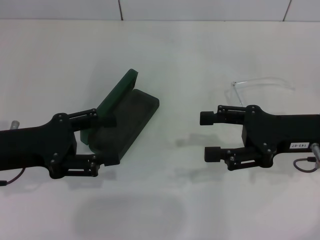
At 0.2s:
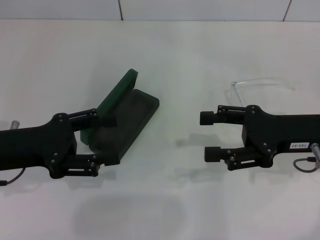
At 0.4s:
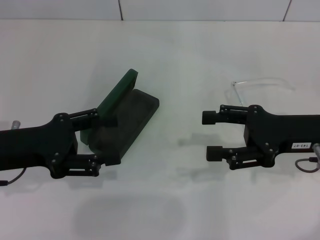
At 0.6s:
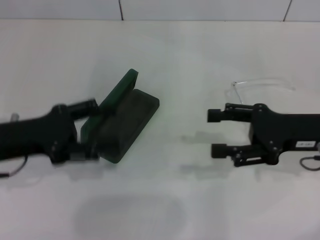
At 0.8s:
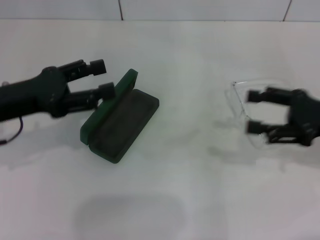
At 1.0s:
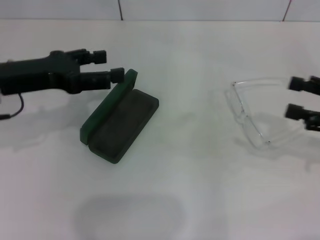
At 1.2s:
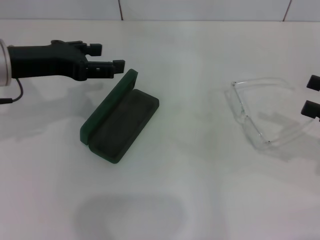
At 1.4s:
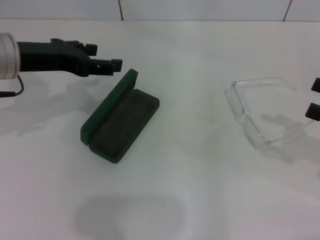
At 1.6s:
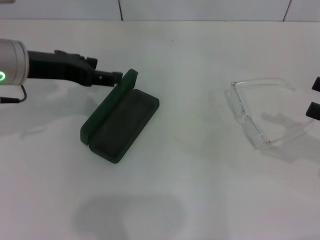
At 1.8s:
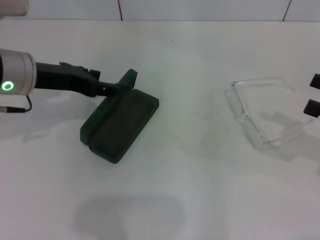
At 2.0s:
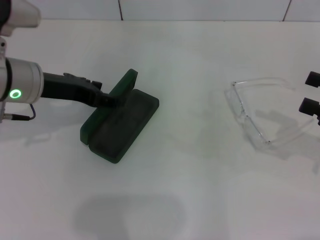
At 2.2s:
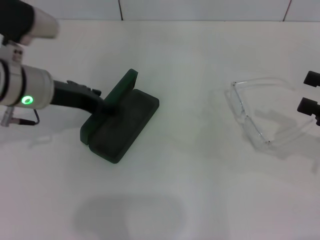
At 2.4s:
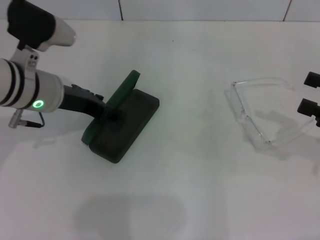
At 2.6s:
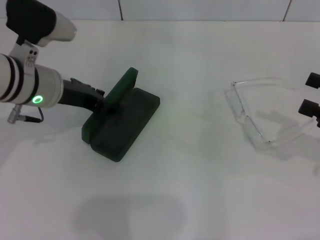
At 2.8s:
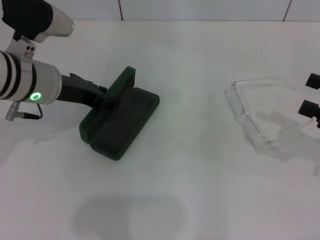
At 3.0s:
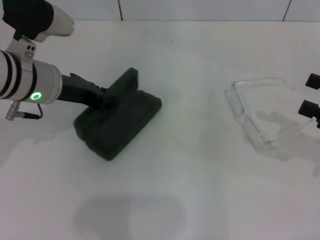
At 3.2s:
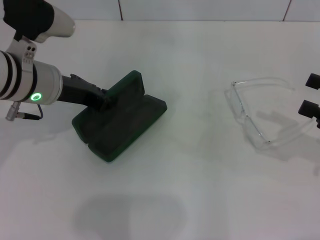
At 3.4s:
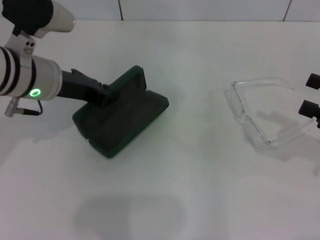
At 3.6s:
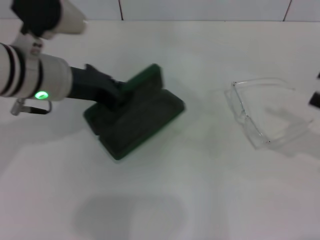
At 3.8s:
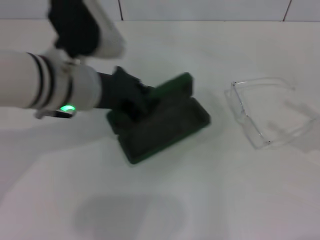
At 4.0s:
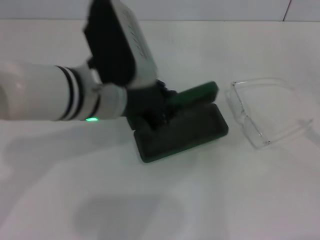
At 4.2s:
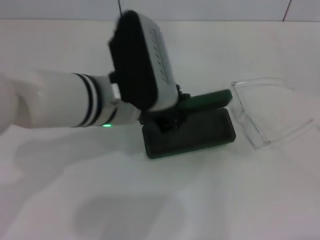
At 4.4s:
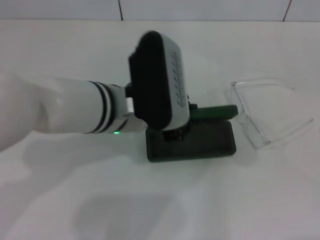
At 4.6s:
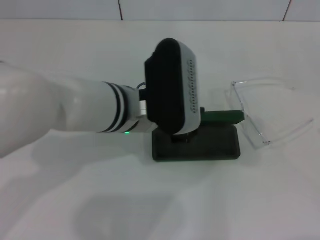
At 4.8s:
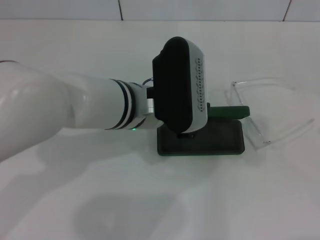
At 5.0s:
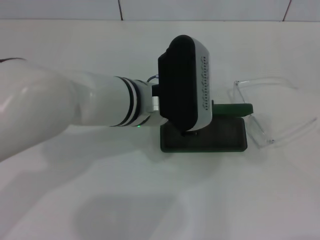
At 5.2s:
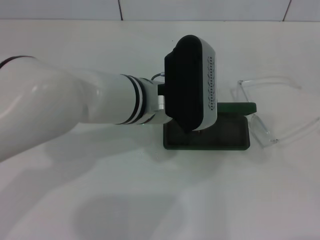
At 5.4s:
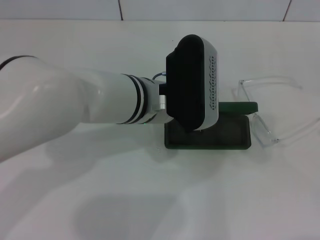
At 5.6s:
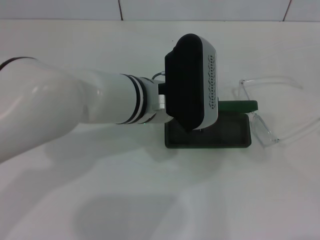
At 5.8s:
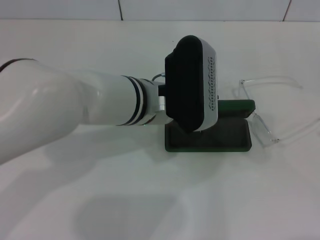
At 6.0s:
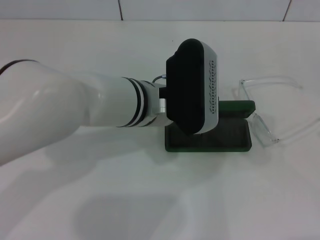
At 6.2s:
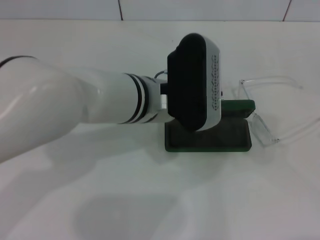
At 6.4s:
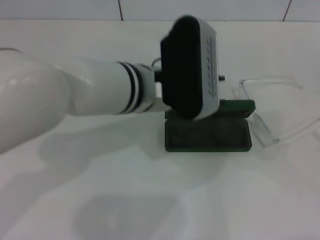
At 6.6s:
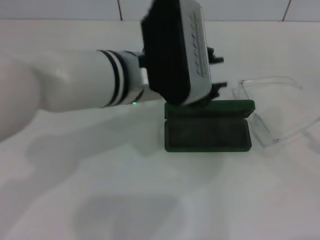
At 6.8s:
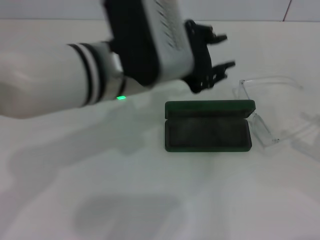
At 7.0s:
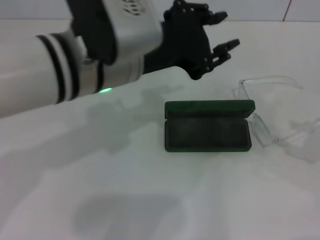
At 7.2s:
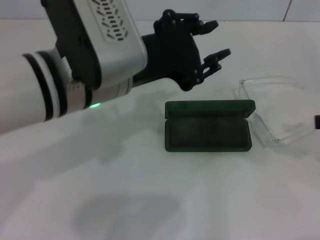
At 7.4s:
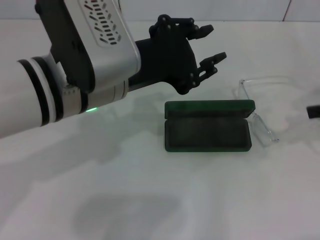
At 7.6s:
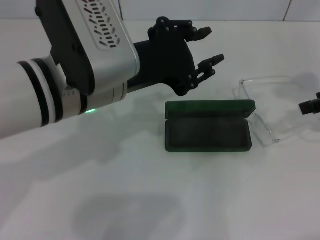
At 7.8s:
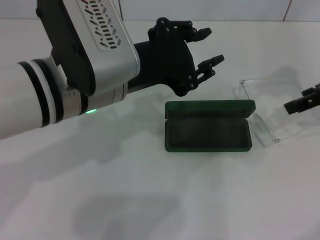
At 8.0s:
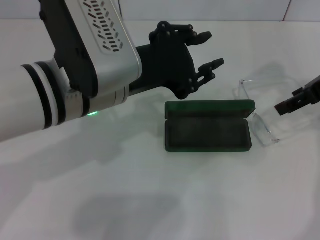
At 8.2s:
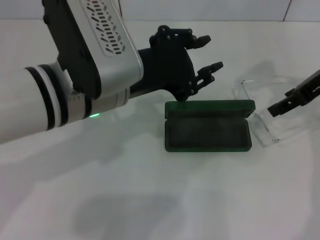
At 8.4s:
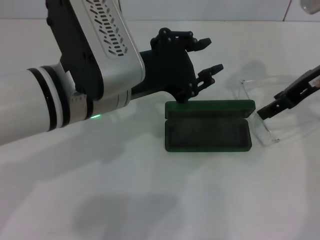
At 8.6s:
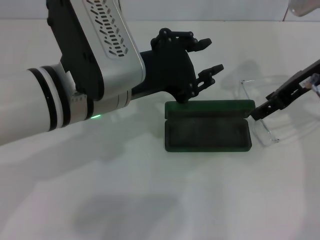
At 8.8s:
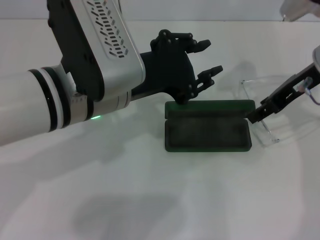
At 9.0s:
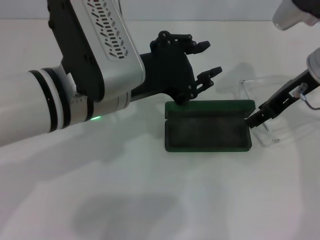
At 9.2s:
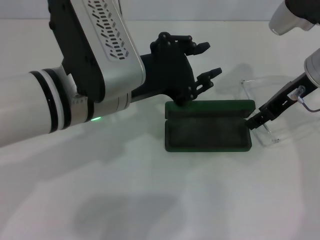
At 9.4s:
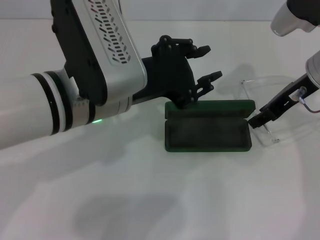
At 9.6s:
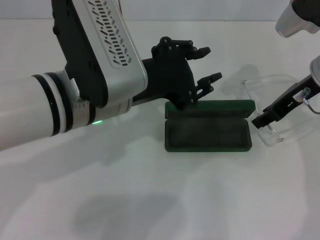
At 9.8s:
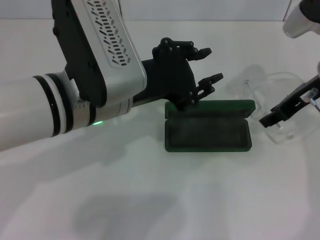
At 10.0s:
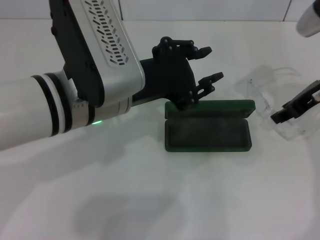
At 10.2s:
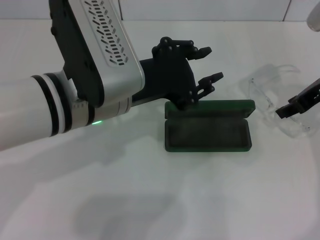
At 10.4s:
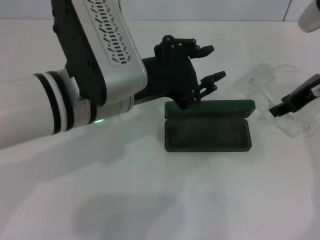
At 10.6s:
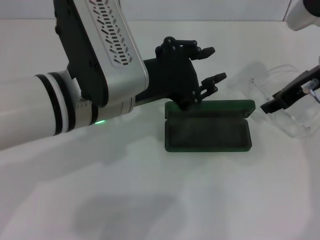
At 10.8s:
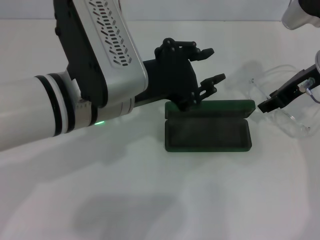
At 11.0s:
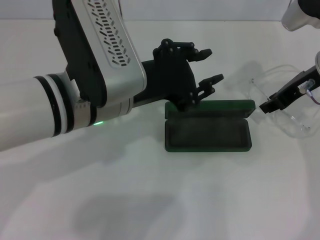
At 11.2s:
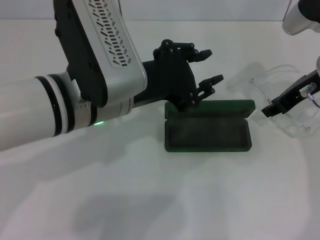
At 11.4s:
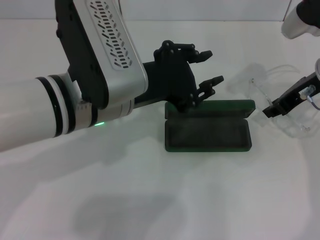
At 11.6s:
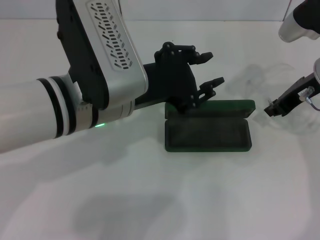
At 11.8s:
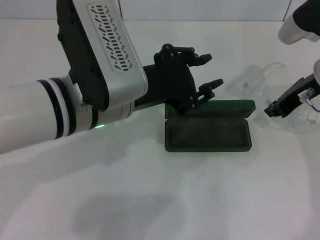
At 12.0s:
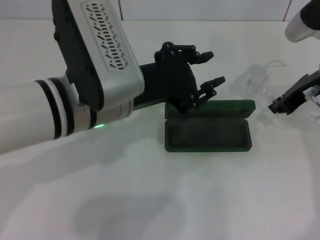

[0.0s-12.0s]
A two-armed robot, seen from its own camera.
Step, 0.0s to 2.8s: Grab the glasses case with your left hand.
Step, 3.0s to 5.6s: Place the glasses case in the center of the table with your left hand.
Step, 6.0s to 11.8s: Grab the eyeglass frame with your right hand.
0.0s to 1.6s: The left gripper shifts roughly 10 cm forward and upward. Meanwhile the right gripper goes approximately 15 cm to the right.
1.6s to 3.0s: The left gripper closes.
3.0s to 4.4s: The right gripper goes some 10 cm backward and to the right; the left gripper goes some 10 cm to the right and backward.
4.4s to 6.0s: There are only small adjustments of the grippers.
6.0s to 7.6s: The left gripper moves upward and to the left, about 10 cm, while the right gripper shifts approximately 25 cm forward, upward and to the left.
7.6s to 9.0s: The right gripper heads to the left and forward, covering some 10 cm.
9.0s to 10.4s: The grippers stay close to where they were, moving slightly.
10.4s to 12.0s: The right gripper closes.

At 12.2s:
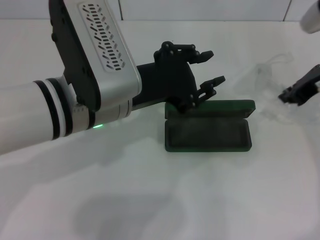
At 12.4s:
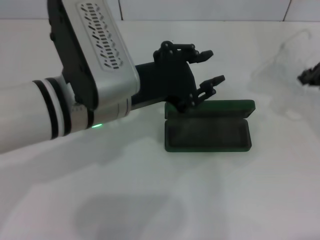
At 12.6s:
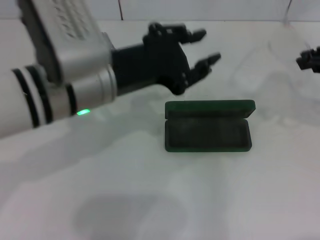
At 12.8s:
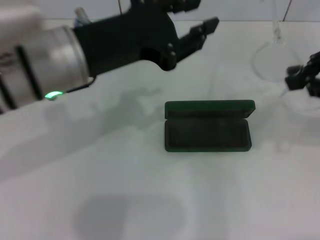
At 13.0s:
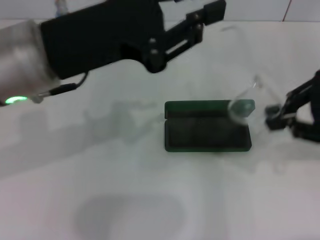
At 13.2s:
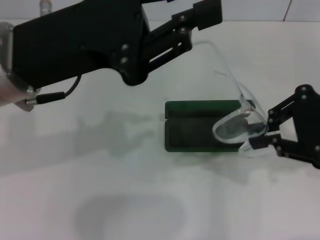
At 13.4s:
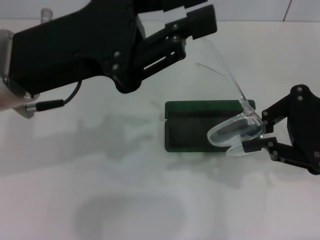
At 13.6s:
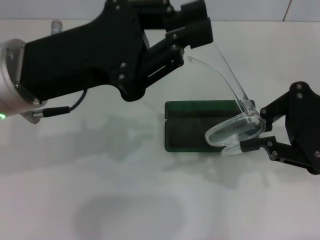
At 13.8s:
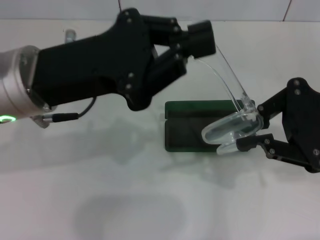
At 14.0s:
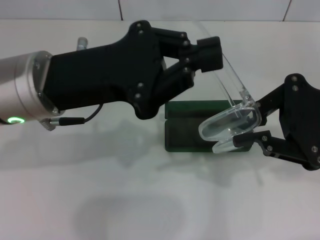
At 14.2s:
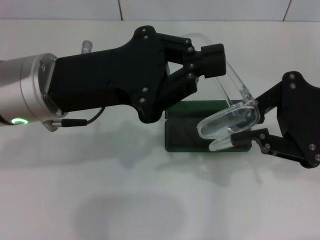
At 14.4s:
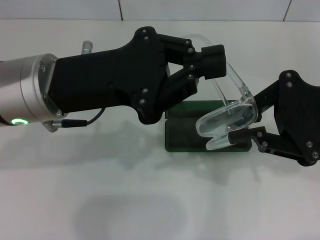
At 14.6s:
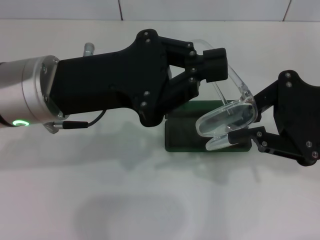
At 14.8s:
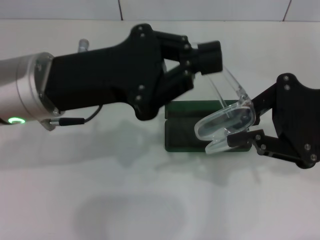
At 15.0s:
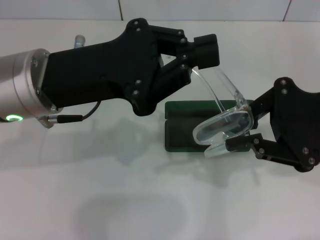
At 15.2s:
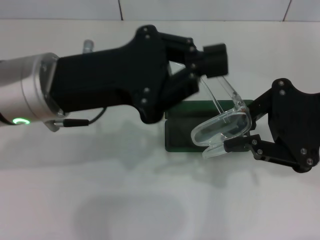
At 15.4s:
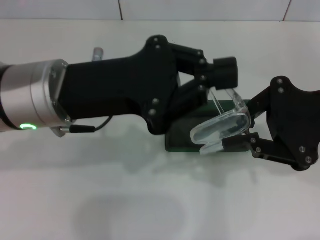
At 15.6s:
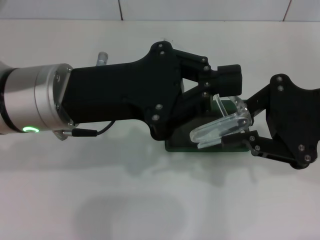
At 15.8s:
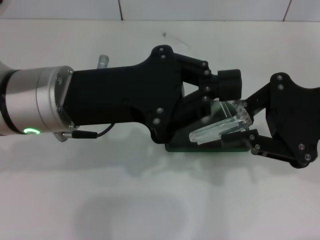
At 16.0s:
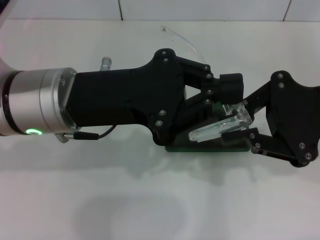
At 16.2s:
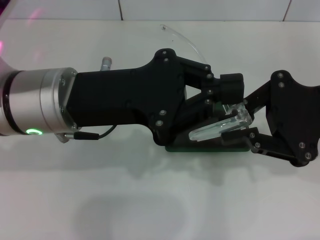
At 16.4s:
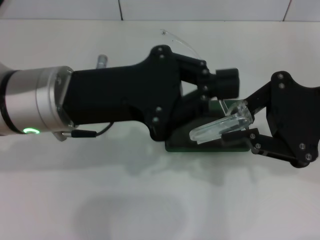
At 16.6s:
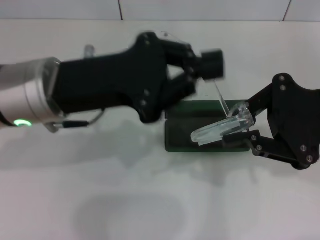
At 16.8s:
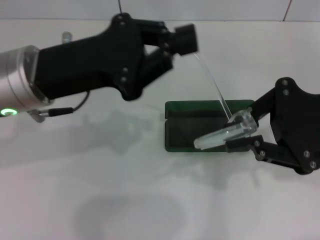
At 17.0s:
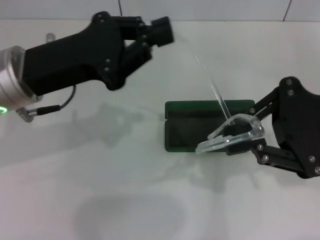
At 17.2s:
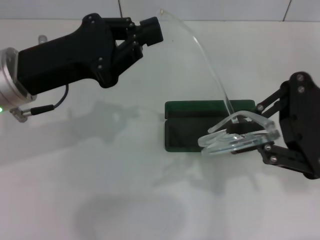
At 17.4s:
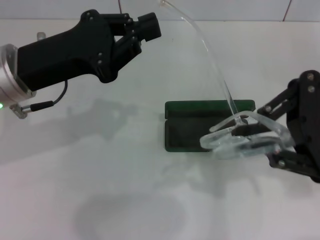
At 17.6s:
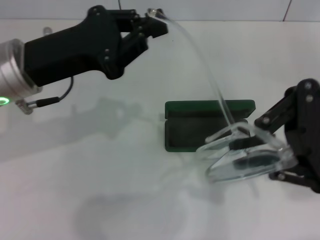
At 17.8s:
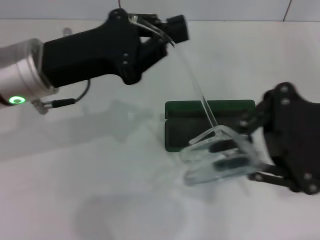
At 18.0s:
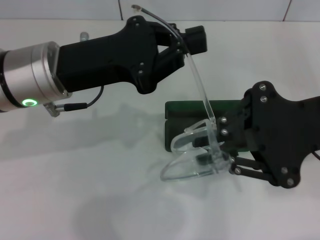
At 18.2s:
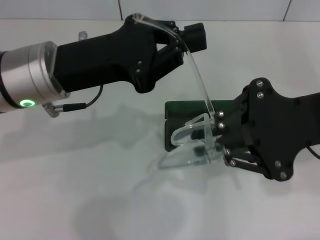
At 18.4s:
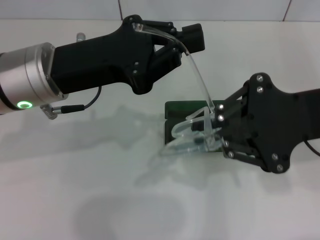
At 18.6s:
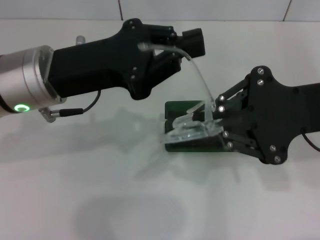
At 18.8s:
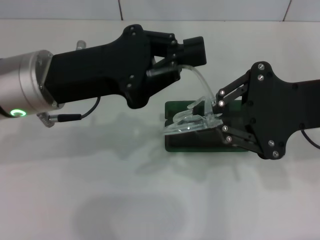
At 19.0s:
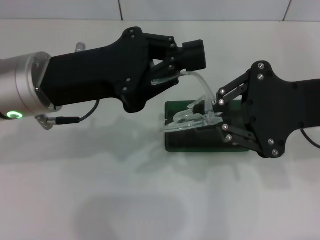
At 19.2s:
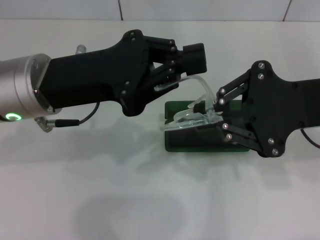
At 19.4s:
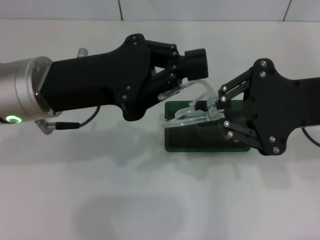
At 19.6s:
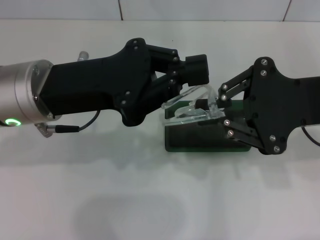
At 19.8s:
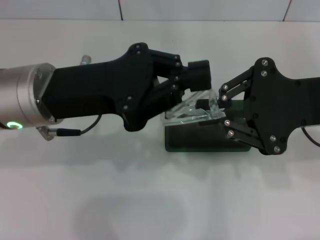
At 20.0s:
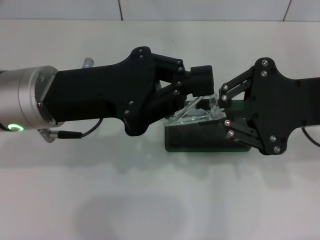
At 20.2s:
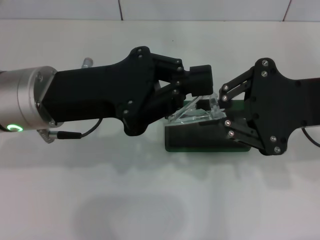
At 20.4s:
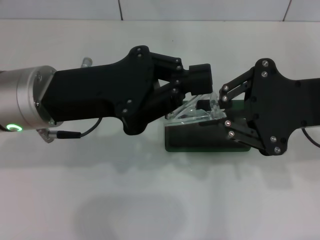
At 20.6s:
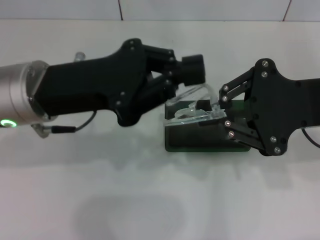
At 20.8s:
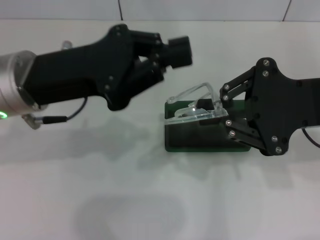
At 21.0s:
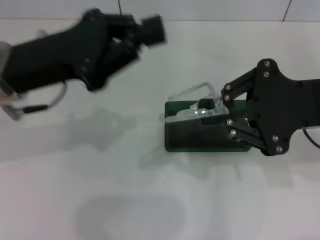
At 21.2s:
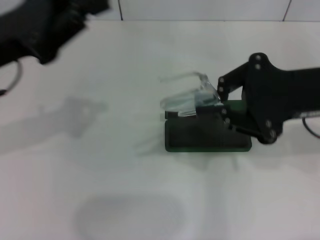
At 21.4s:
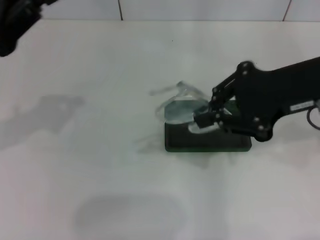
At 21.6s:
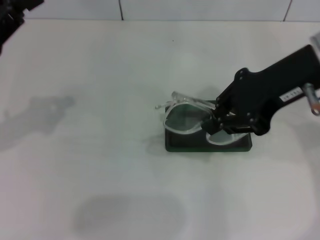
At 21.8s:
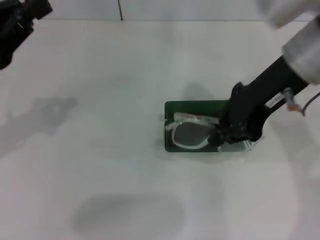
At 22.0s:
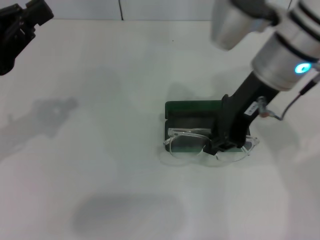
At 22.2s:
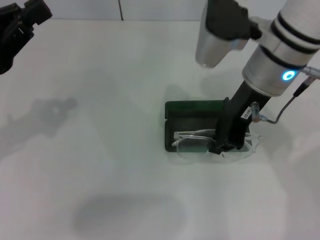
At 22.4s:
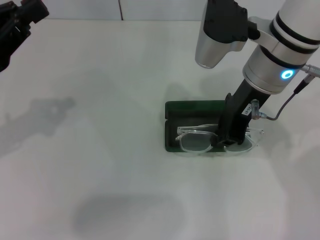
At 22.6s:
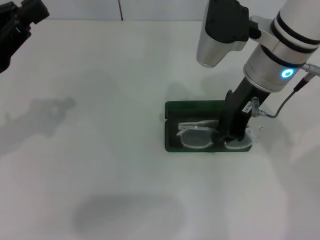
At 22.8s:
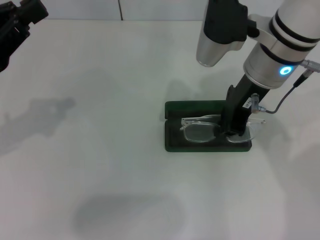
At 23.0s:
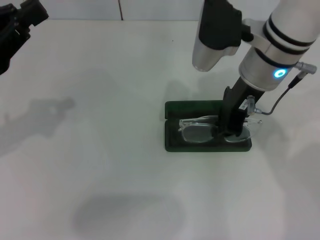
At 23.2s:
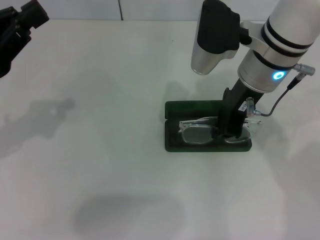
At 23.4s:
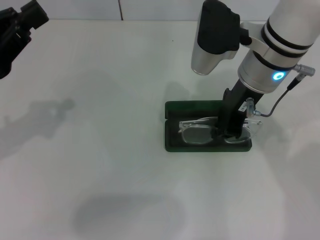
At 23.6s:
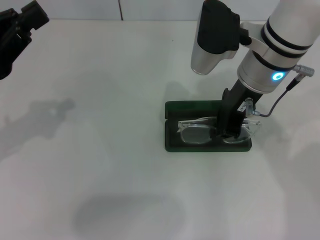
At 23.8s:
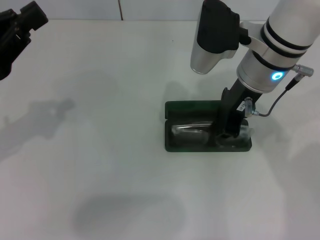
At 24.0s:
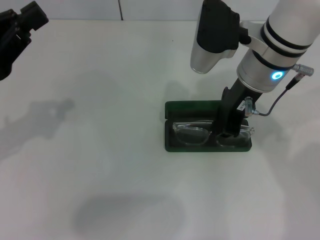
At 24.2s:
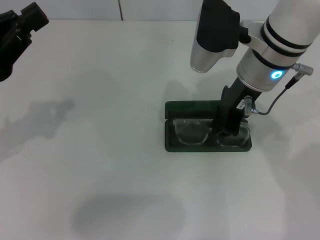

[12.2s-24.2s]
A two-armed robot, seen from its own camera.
Step, 12.2s to 20.6s: Fold the frame with your left hand.
12.2s to 13.8s: The left gripper is displaced to the left by about 5 cm. Meanwhile the right gripper shifts about 10 cm backward.
15.2s to 16.6s: The grippers stay close to where they were, moving slightly.
19.8s to 21.2s: The left gripper is displaced to the left by approximately 10 cm.
21.2s to 22.6s: The right gripper heads to the left and forward, covering roughly 15 cm, while the left gripper goes roughly 5 cm to the left.
22.6s to 24.2s: The grippers make only small movements.
